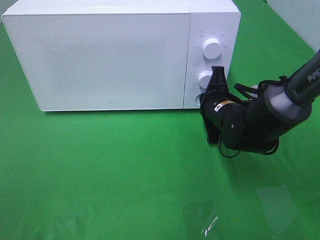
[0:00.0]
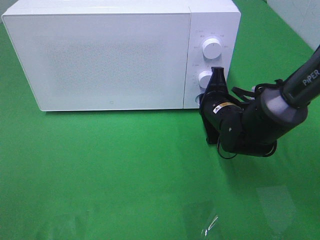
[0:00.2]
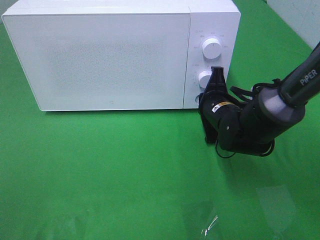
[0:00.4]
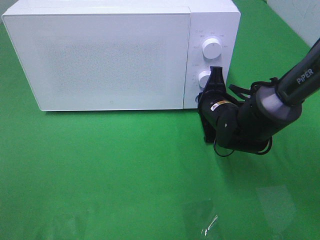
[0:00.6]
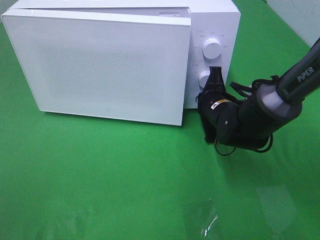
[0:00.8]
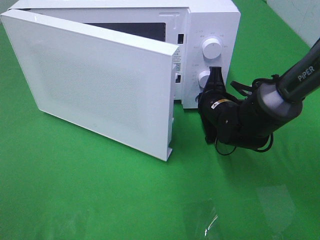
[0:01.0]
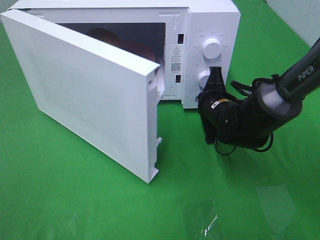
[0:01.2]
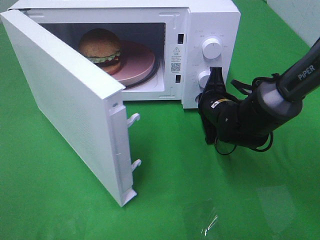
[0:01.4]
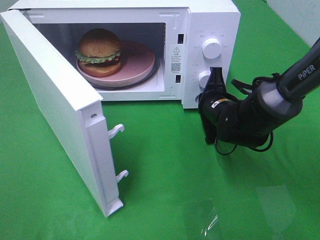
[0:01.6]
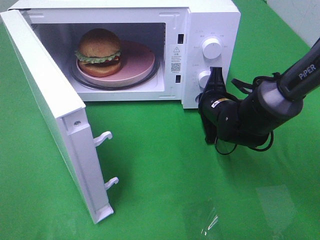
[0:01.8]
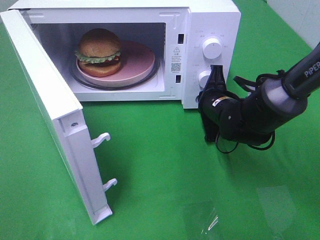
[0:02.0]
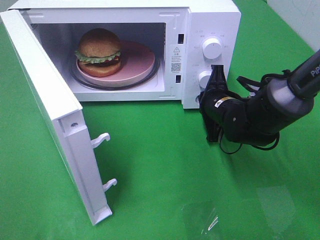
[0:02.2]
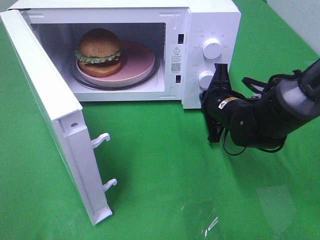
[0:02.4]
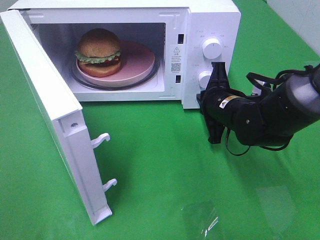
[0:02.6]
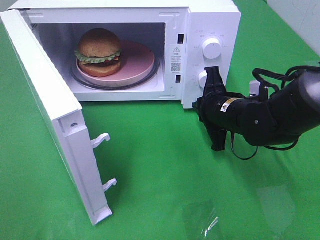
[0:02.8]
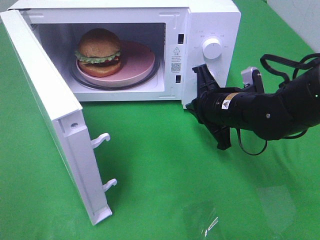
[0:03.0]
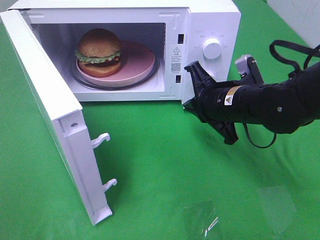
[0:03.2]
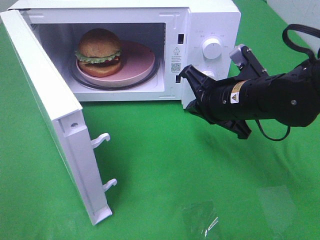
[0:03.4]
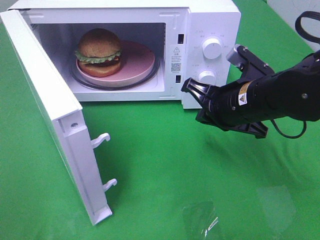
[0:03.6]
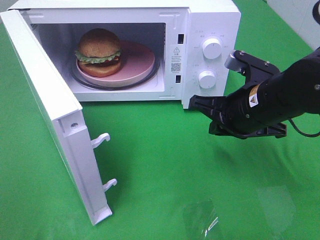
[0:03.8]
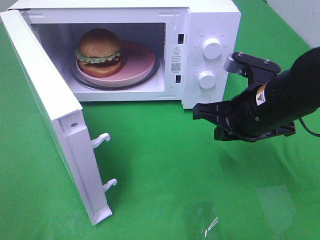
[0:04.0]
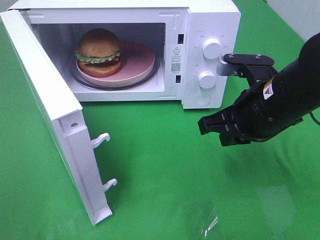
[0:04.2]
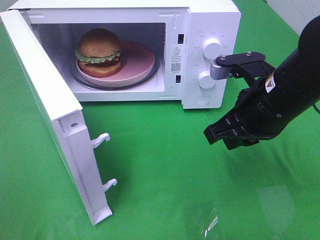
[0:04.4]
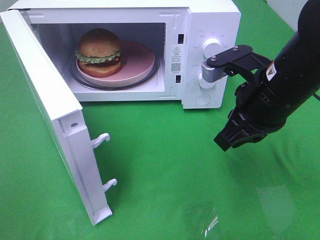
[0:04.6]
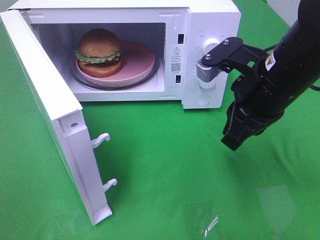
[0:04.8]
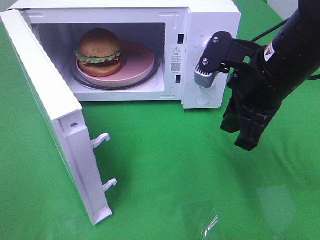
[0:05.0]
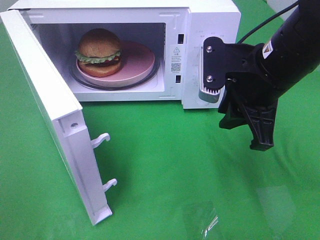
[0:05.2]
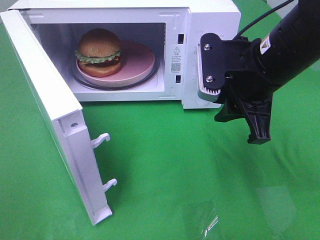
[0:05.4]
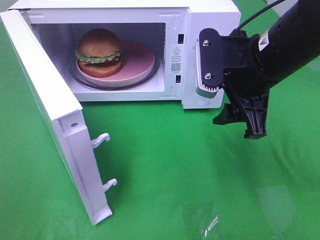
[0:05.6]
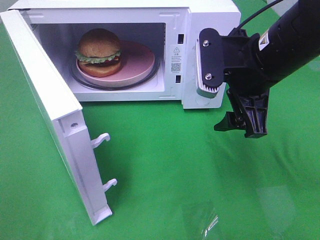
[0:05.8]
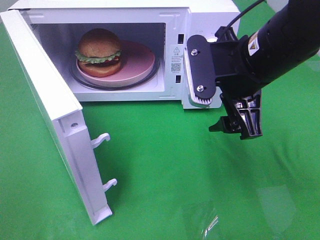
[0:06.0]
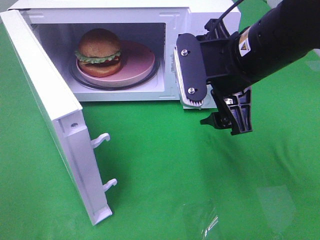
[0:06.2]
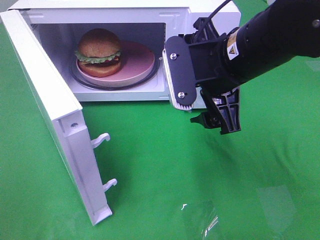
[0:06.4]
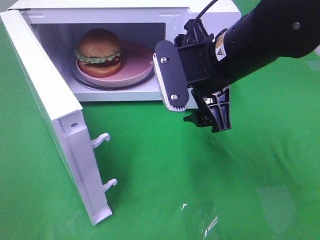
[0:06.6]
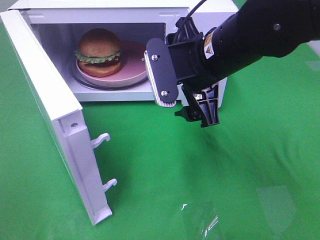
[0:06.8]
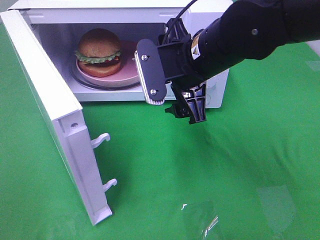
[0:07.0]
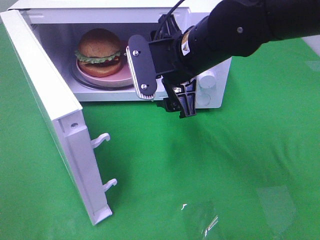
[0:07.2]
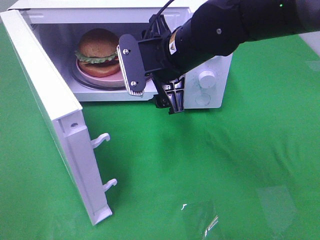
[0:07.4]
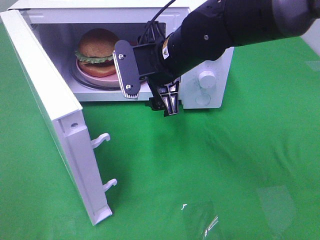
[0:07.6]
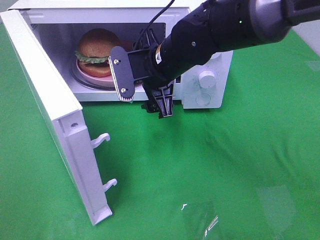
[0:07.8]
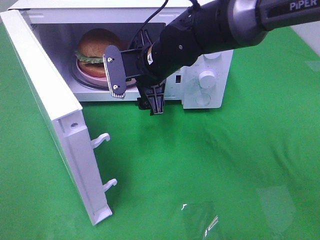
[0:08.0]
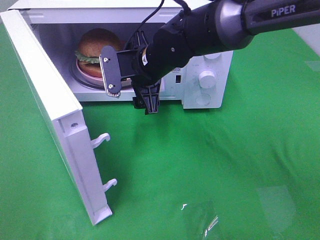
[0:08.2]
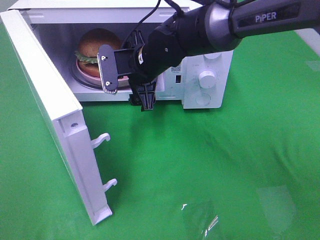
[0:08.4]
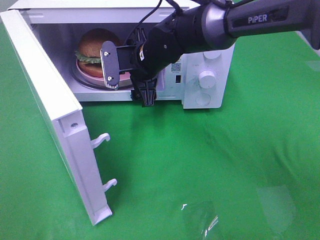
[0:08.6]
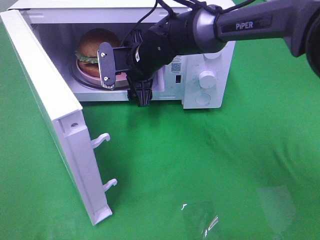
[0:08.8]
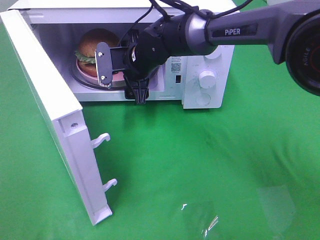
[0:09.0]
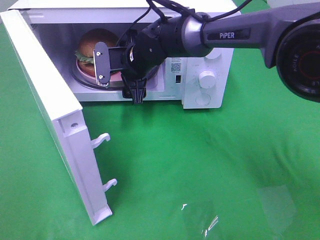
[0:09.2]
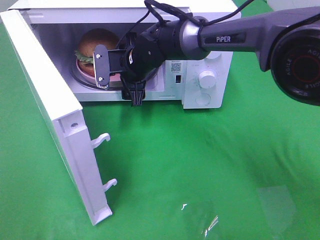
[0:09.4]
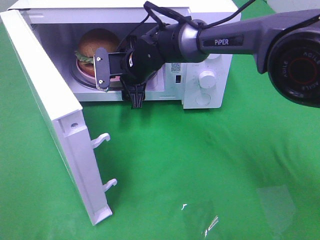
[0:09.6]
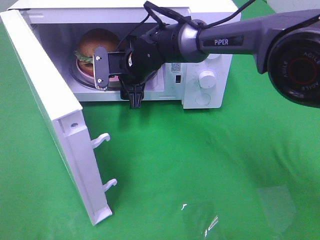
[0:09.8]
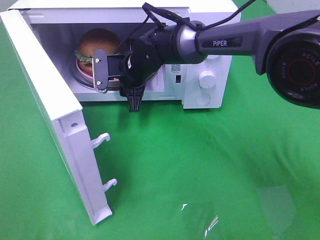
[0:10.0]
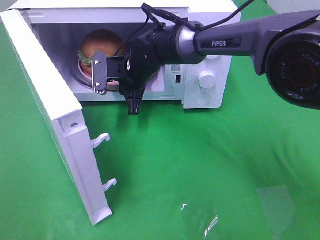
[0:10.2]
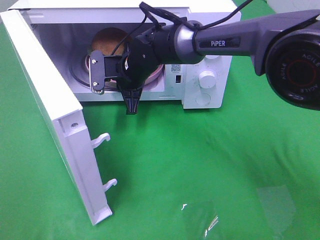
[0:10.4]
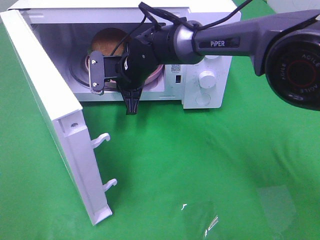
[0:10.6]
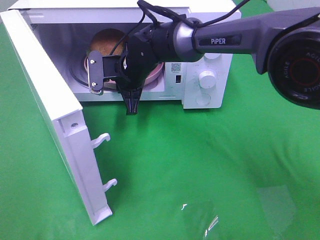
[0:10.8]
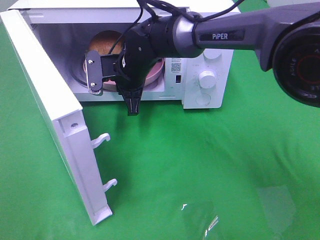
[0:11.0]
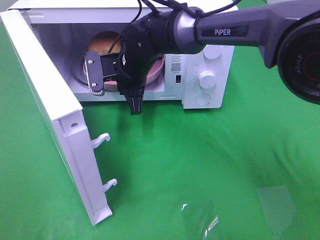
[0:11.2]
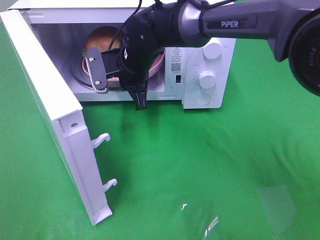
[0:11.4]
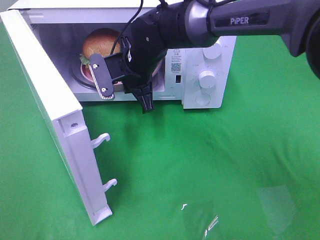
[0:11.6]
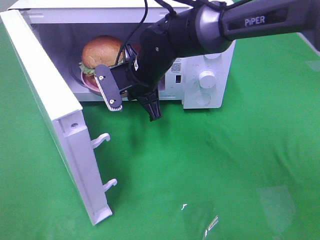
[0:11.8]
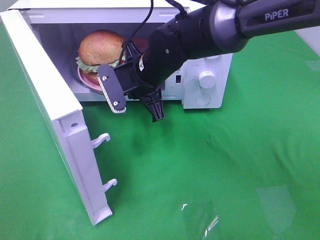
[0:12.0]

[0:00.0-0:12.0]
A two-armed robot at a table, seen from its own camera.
Task of the whole recording: Heat the burger.
Step, 0:00.0 to 0:02.4: Right hand: press the switch.
Step, 0:02.6 to 0:10.2: Right hand: grab the plate with the hamburger.
0:01.6 to 0:03.0: The right gripper heads backward, covering approximately 5 cm.
0:03.0 to 0:04.4: The right gripper is displaced upward and backward by roughly 10 cm.
0:04.4 to 0:06.0: The right gripper ends up approximately 5 cm from where it was, and opens.
0:06.0 to 0:07.6: The right gripper moves to the left and forward, some 10 cm.
0:07.6 to 0:09.0: The right gripper moves forward, downward and to the left, some 10 cm.
0:09.0 to 0:10.4: The right gripper closes up.
0:10.4 to 0:12.0: The right gripper heads backward, covering some 5 cm.

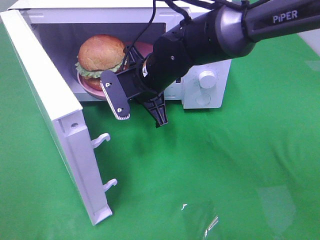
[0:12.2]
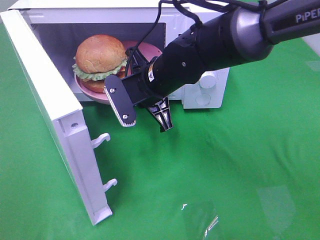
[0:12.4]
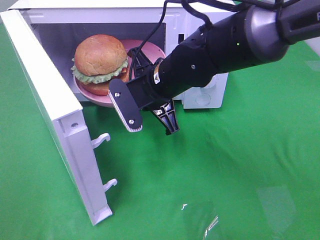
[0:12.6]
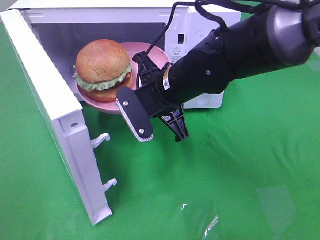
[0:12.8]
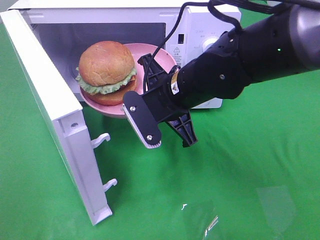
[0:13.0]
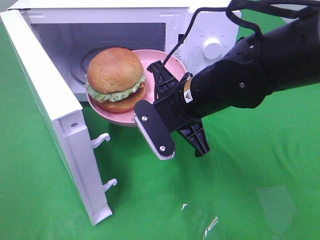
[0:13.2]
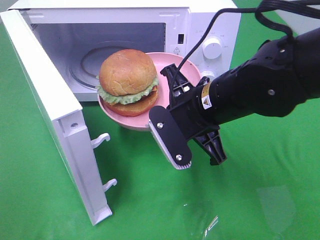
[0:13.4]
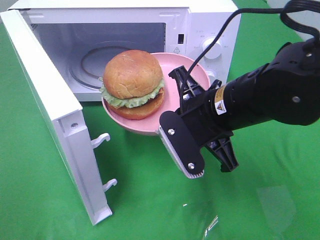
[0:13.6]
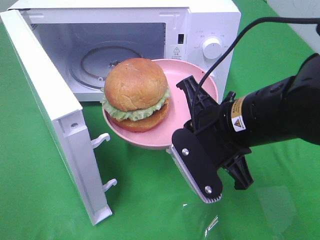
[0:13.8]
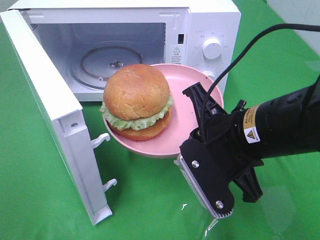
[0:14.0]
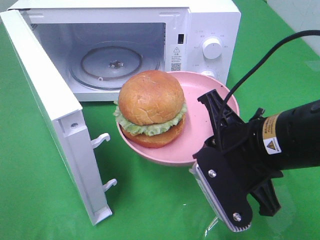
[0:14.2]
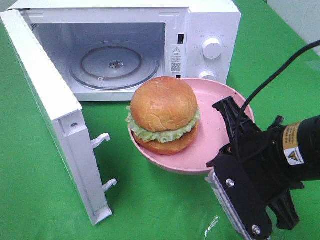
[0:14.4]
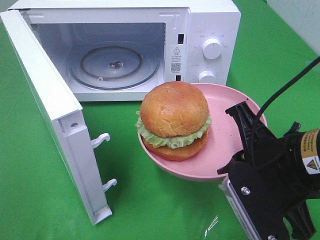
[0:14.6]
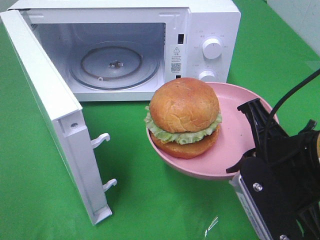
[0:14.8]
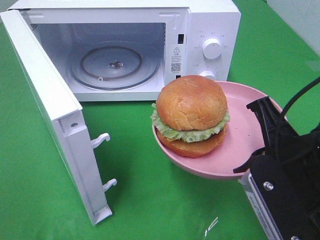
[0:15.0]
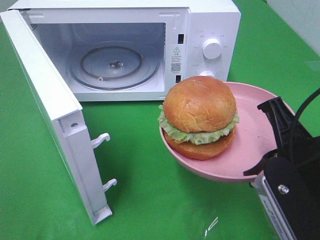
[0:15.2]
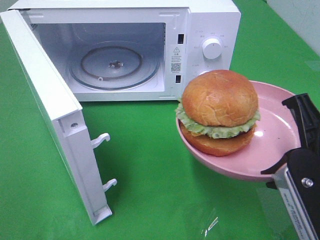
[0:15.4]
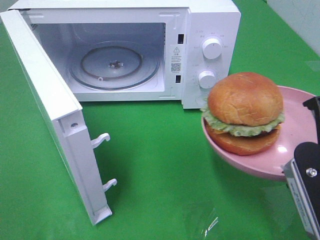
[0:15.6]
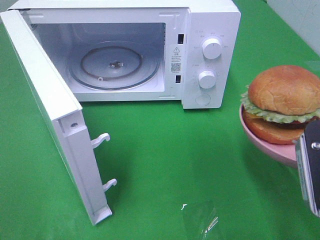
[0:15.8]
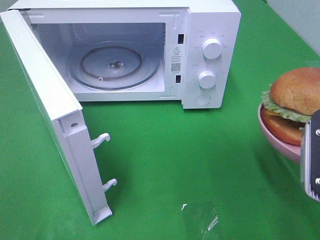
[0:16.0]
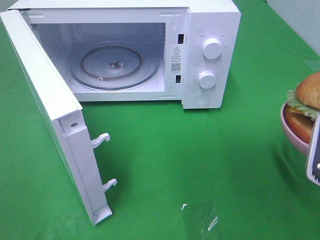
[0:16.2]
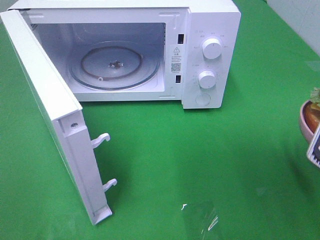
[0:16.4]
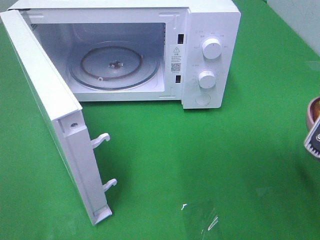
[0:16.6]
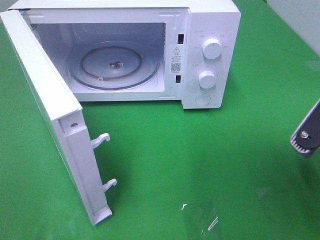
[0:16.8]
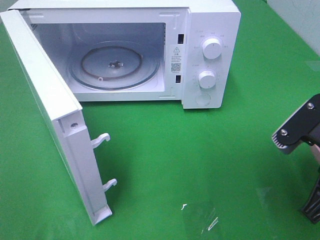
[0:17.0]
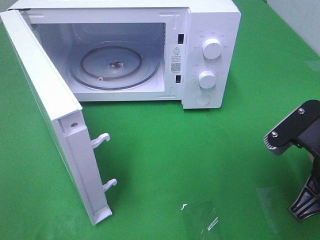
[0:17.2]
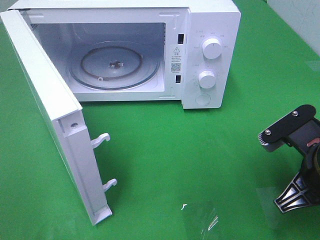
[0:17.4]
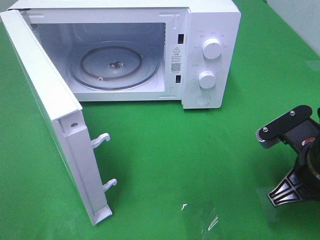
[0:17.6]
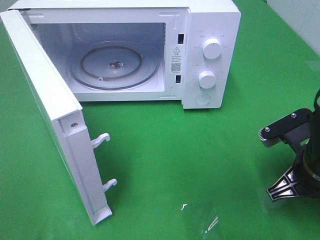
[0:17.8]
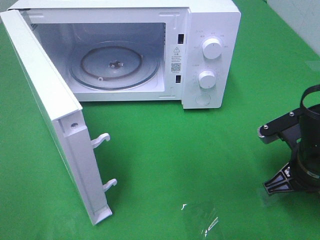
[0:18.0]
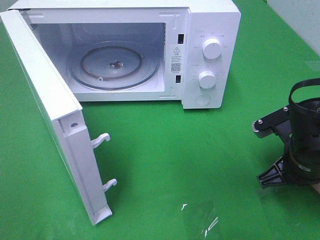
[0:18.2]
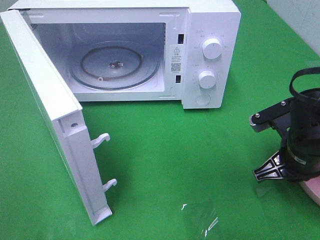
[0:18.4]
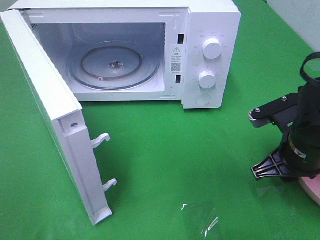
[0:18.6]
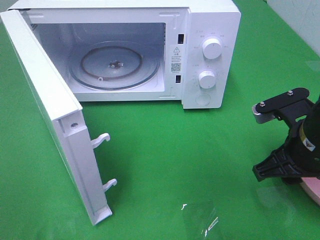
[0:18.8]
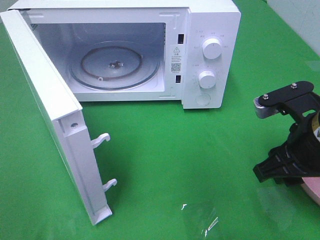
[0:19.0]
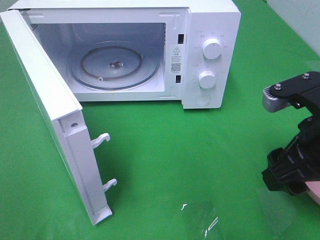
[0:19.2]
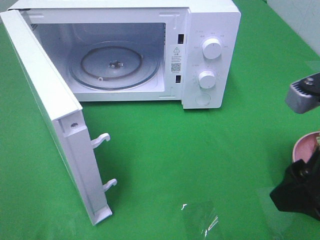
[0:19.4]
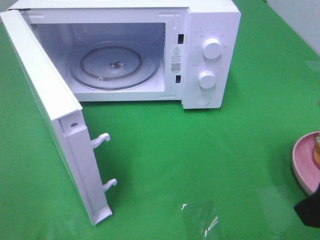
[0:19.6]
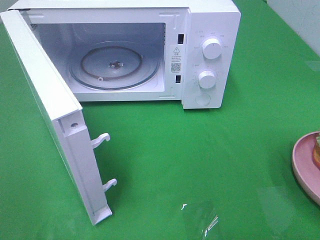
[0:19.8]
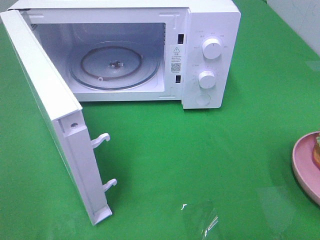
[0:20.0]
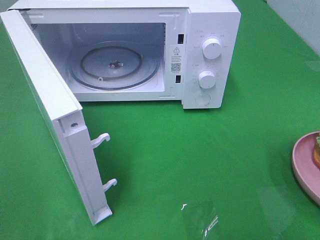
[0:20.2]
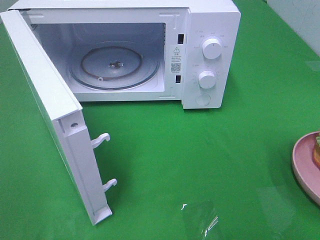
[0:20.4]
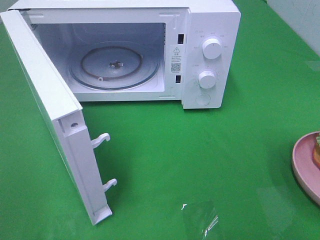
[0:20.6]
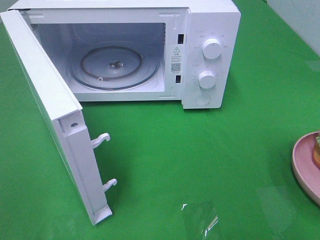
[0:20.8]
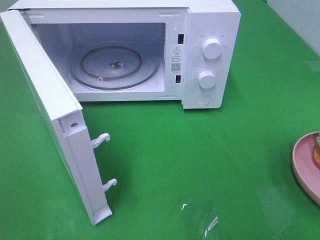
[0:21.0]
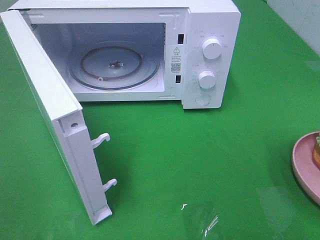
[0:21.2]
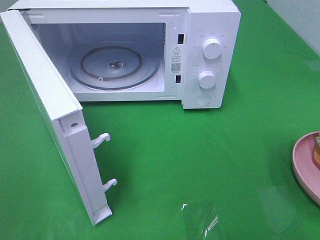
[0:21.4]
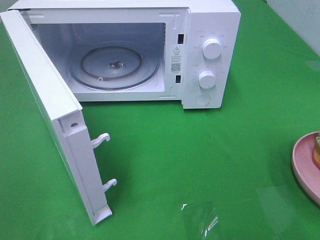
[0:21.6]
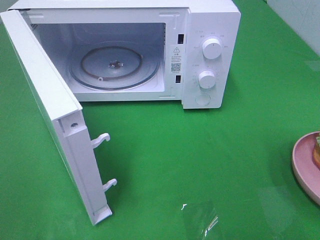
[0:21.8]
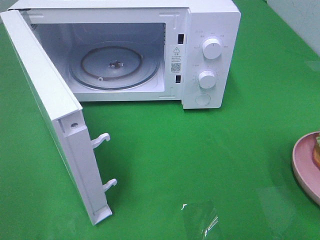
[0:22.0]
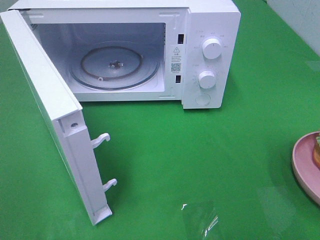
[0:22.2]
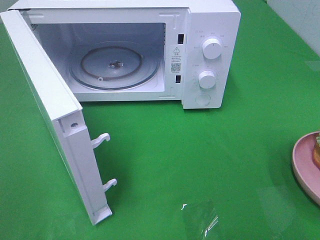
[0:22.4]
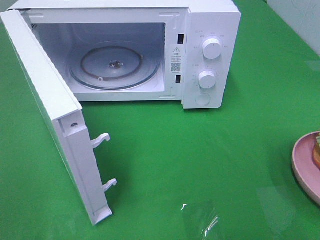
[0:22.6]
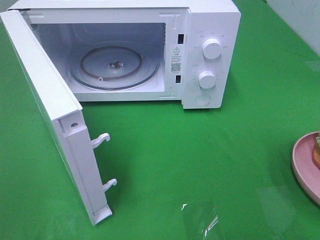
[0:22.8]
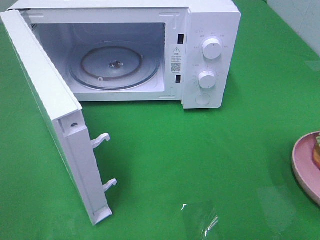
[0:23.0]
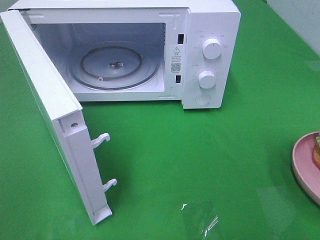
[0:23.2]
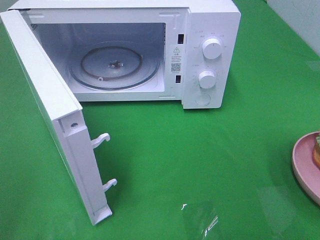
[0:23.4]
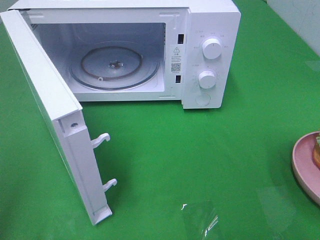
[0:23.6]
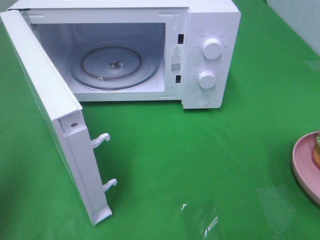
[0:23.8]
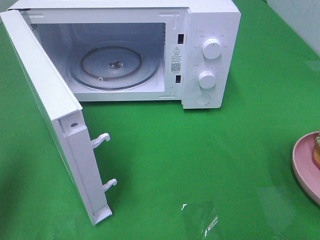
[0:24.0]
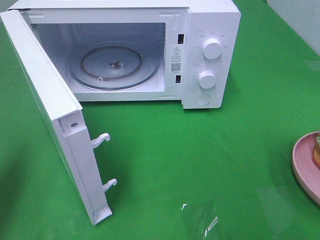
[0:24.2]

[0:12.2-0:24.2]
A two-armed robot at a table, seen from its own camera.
Task of the whole recording: Heat the burger.
Step, 0:12.2 to 0:18.4: Right hand: place the plate on the table.
0:12.2 to 0:13.8: The right gripper is displaced backward and to the right by about 20 cm.
0:13.8 to 0:15.2: The right gripper shifts approximately 10 cm to the right and backward.
0:15.2 to 0:16.6: The right gripper travels to the right by roughly 5 cm.
0:16.6 to 0:18.2: The right gripper heads downward and forward, covering some 15 cm.
0:18.2 to 0:19.8: The right gripper moves upward and backward, some 25 cm, and opens its fingers.
0:21.2 to 0:22.6: Both grippers stay about where they are.
0:22.6 to 0:24.2: The left gripper is displaced forward by some 15 cm, and closes its fingers.
